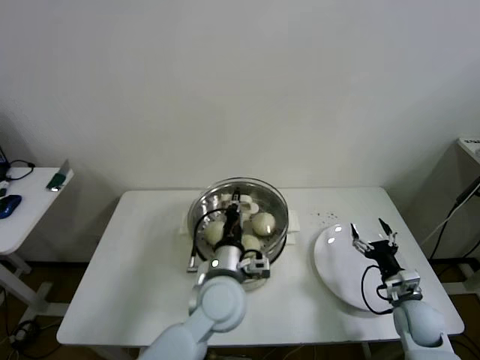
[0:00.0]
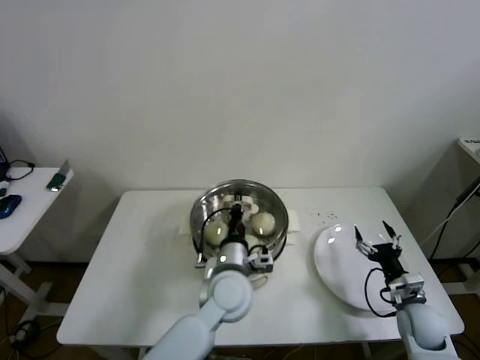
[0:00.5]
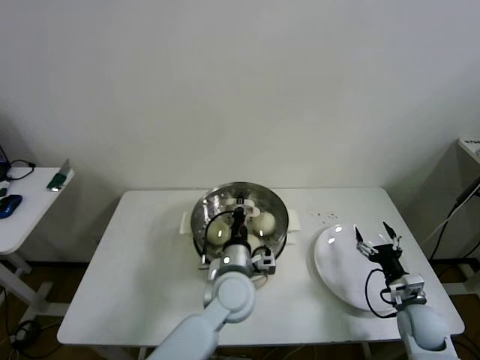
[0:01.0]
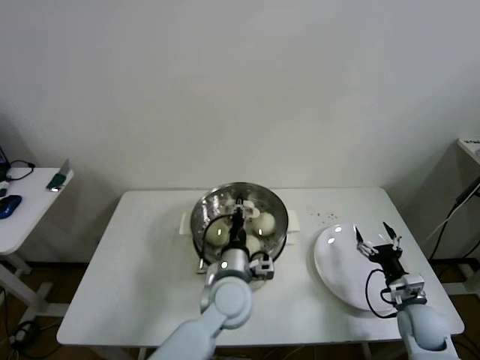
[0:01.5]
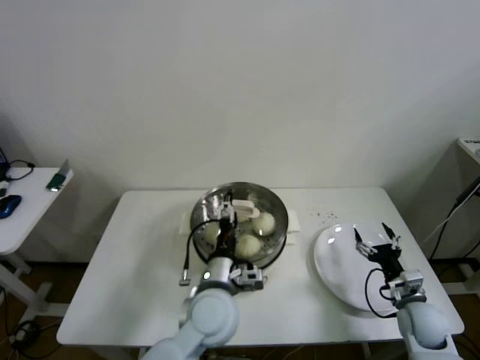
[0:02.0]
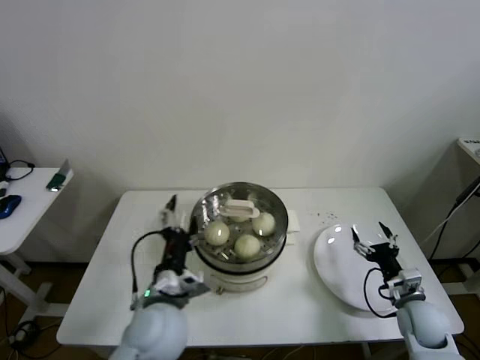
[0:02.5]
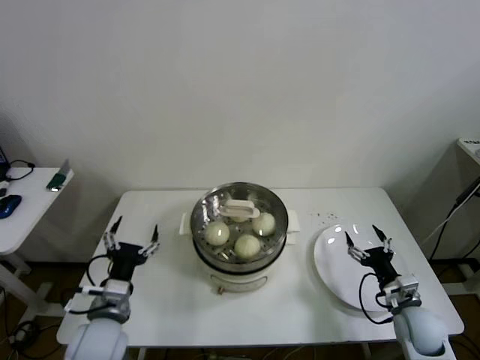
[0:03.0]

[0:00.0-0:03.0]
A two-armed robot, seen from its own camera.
0:00.0 to 0:01.5: The left gripper moves approximately 5 cm.
0:01.5 to 0:03.0: The left gripper is displaced to the left by approximately 25 cm, and opens.

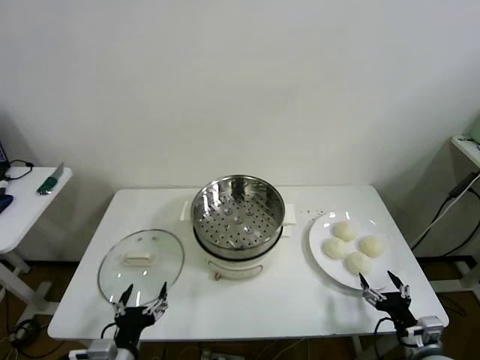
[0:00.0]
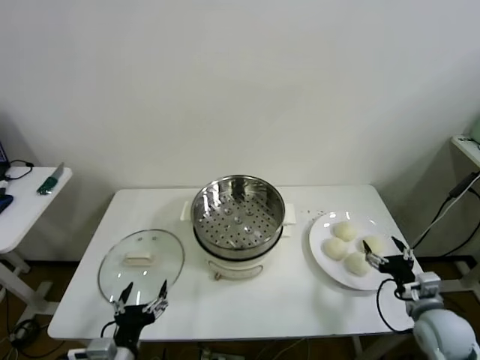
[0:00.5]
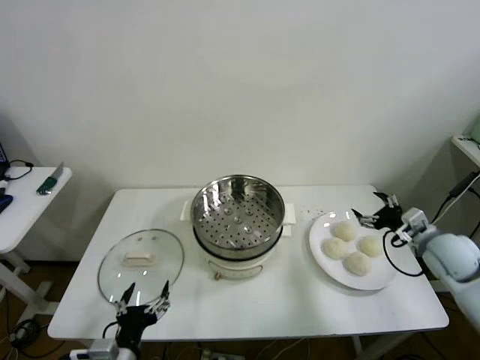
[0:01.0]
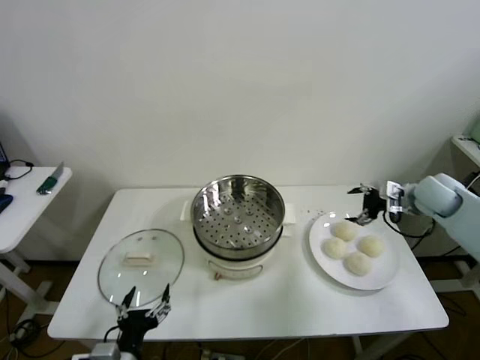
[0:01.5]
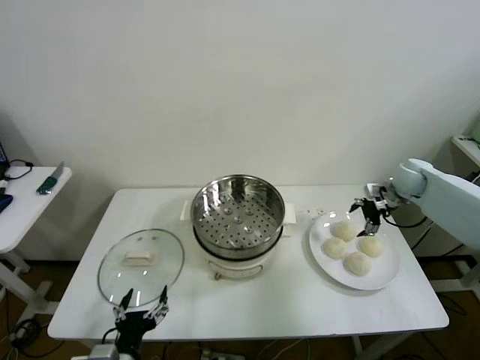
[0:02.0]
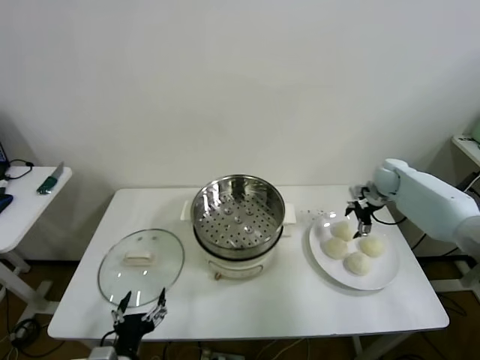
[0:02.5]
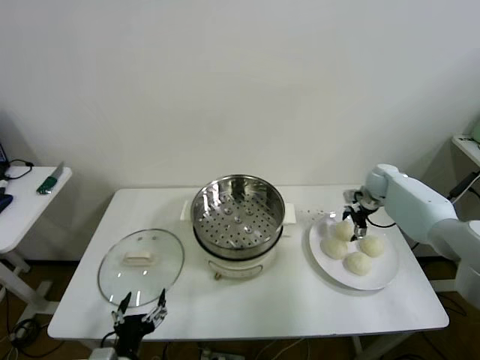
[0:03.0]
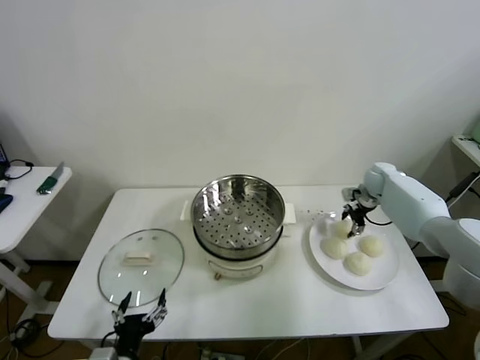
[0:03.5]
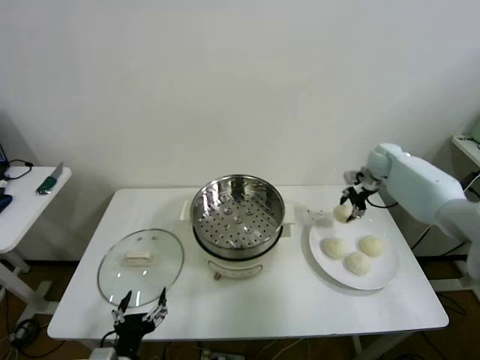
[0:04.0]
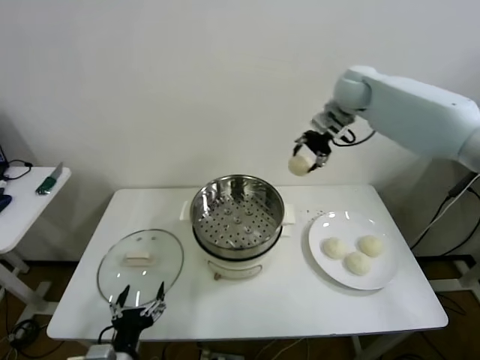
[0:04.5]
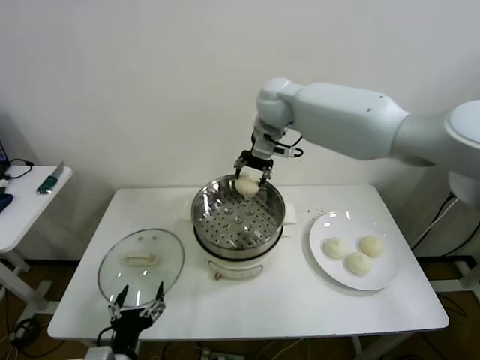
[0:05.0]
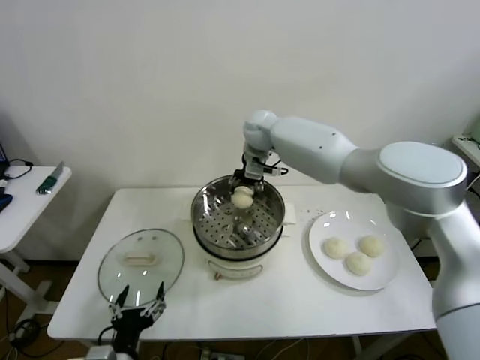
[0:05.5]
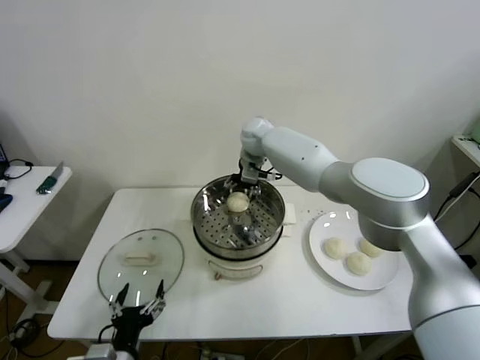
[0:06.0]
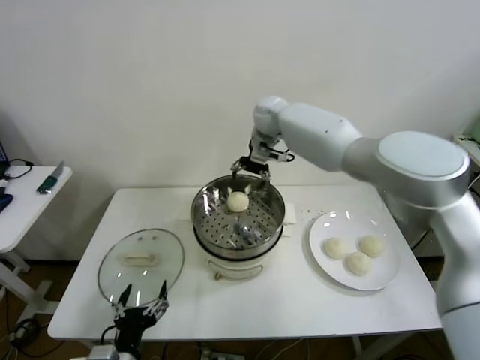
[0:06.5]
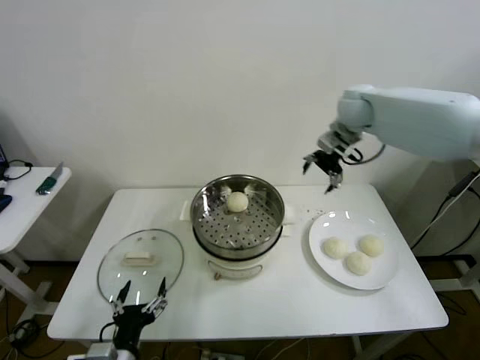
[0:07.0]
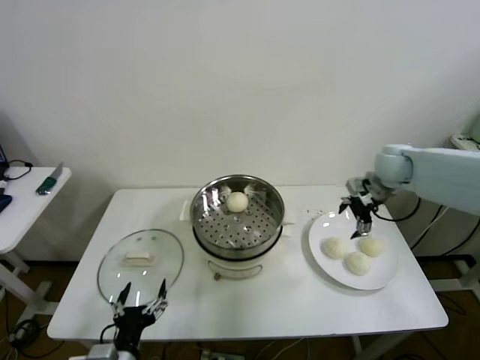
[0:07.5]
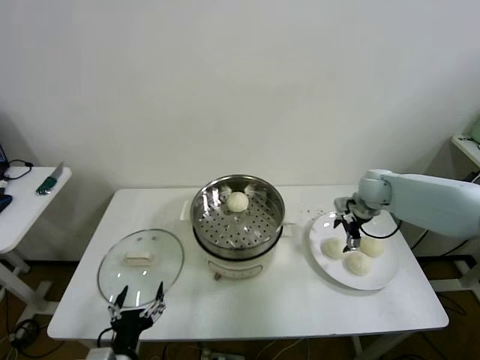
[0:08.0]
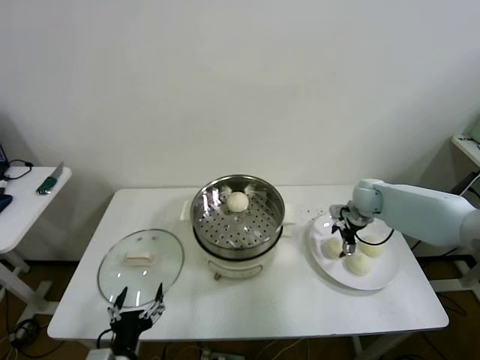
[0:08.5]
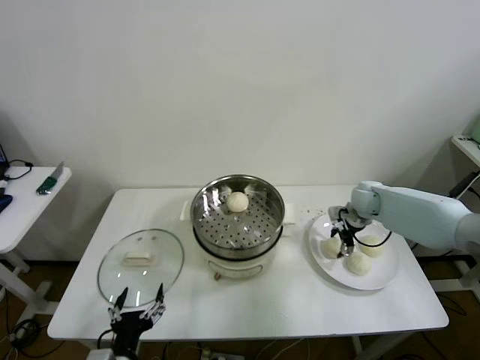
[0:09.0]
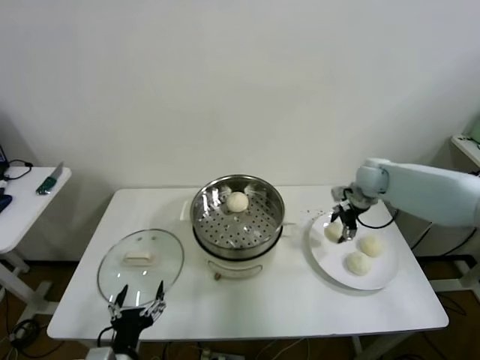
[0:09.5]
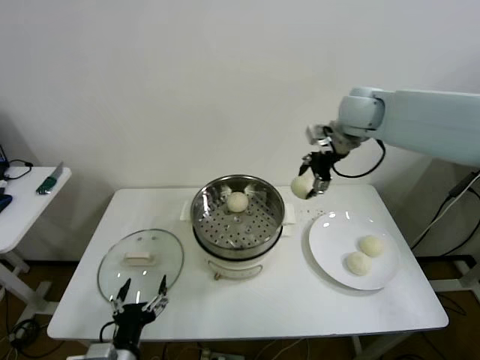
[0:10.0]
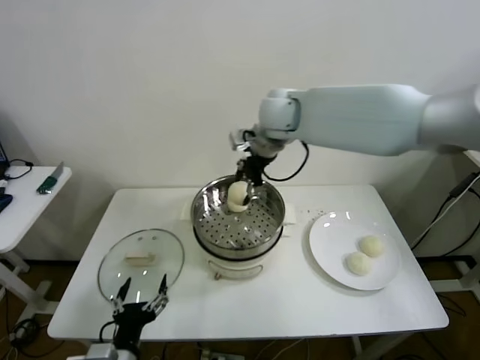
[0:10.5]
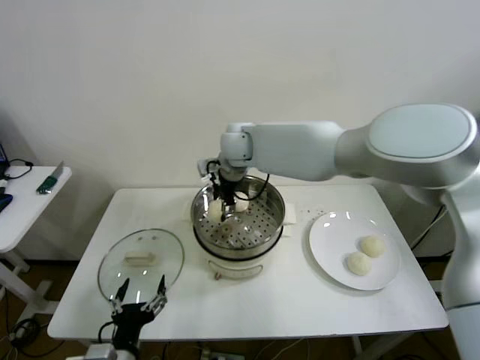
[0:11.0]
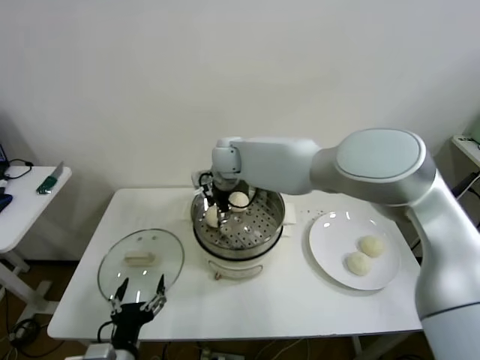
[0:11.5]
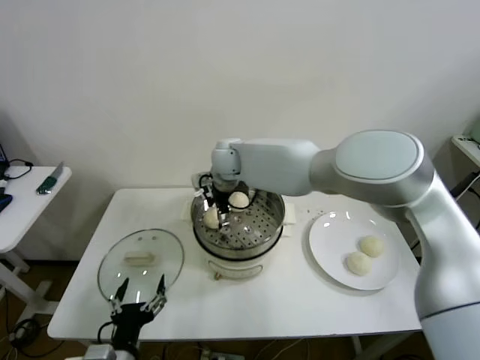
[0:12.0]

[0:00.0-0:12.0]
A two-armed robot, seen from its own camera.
Step, 0:00.0 to 0:03.0: Grasp the baozi in the plate with right gripper.
Step, 0:03.5 to 0:05.5: Place the baozi on the steamer with right gripper.
Step, 0:06.5 to 0:08.5: Grasp the baozi in the plate with right gripper.
Step, 0:09.0 to 0:11.5: Place the baozi on the steamer with right gripper.
0:02.0 to 0:04.0: The right gripper travels forward by approximately 10 cm, and closes.
0:04.0 to 0:06.0: The right gripper heads to the left, covering approximately 35 cm, and opens its fingers.
0:06.0 to 0:08.0: The right gripper moves to the right, some 30 cm.
0:08.0 to 0:10.0: The right gripper moves upward and to the left, some 25 cm, and closes up.
0:10.0 to 0:12.0: The right gripper is displaced to the left and downward by some 30 cm, and opens up.

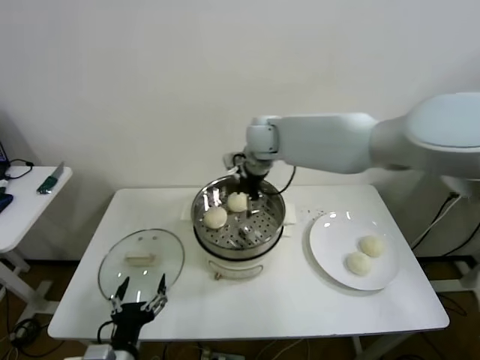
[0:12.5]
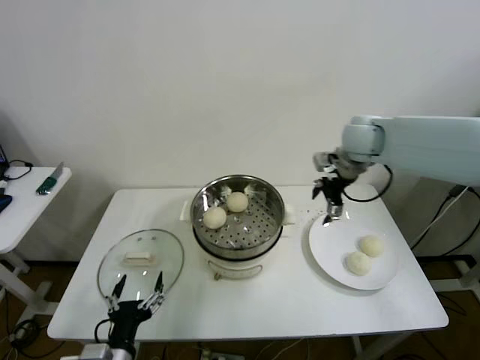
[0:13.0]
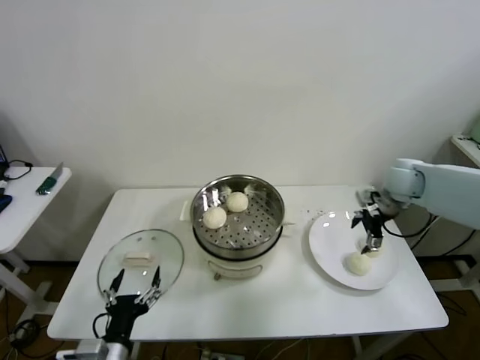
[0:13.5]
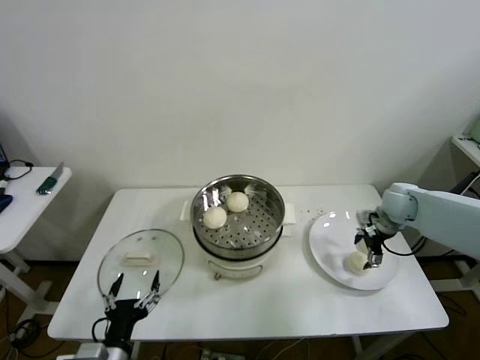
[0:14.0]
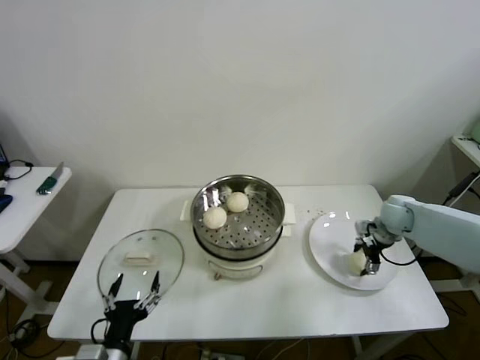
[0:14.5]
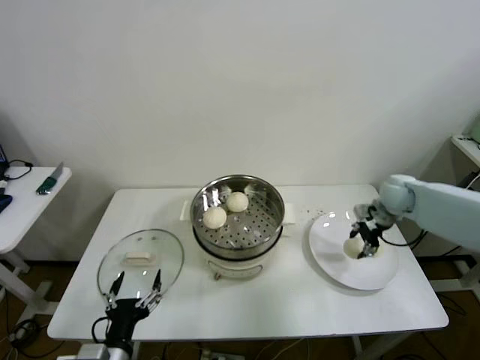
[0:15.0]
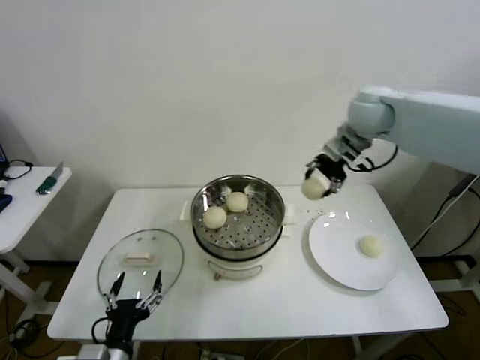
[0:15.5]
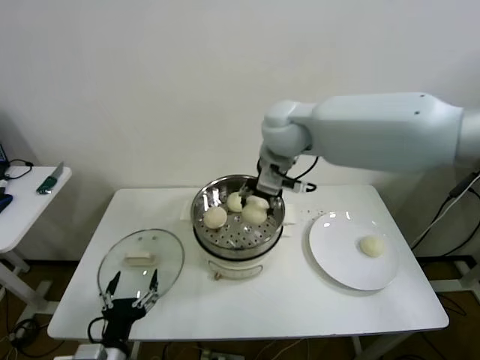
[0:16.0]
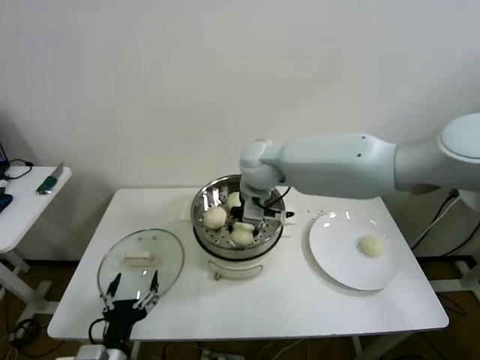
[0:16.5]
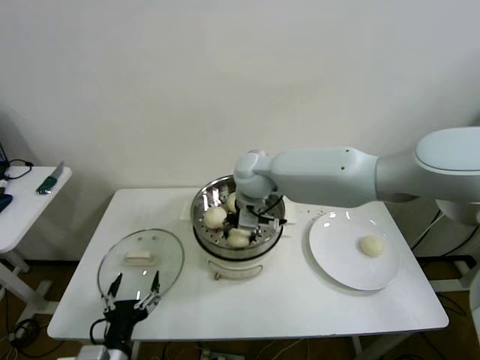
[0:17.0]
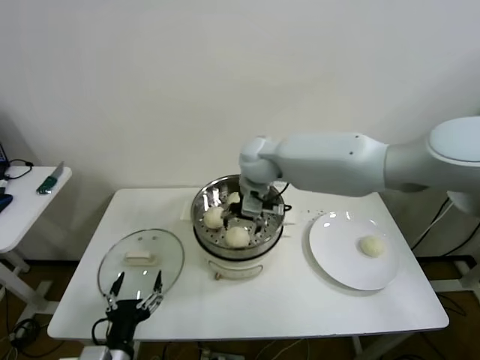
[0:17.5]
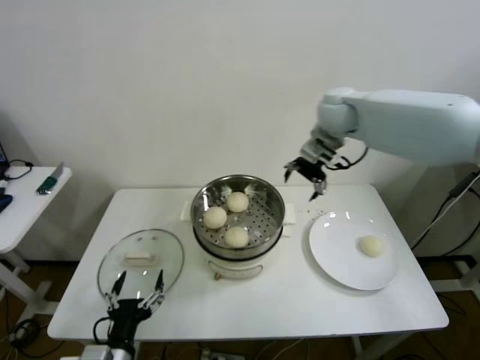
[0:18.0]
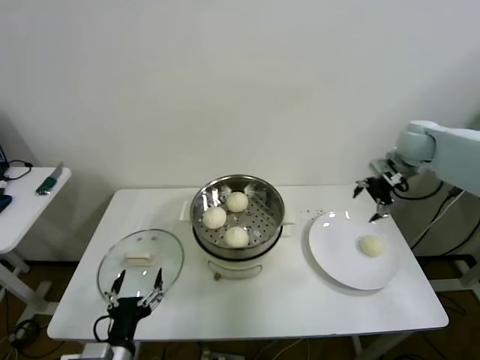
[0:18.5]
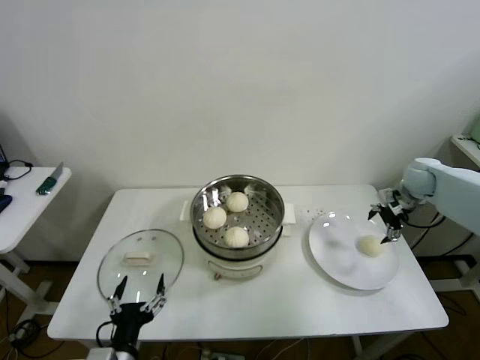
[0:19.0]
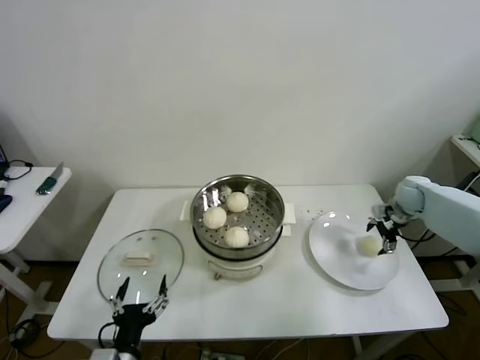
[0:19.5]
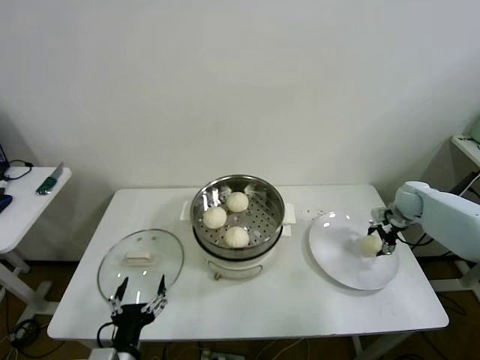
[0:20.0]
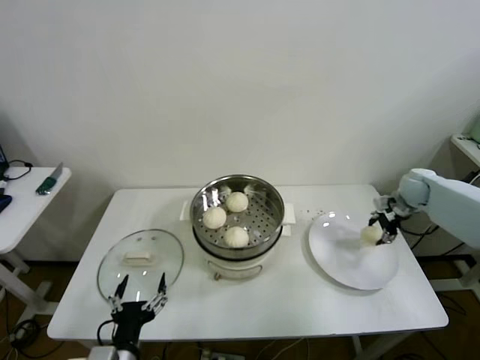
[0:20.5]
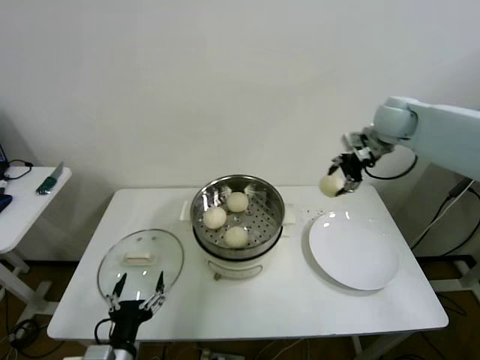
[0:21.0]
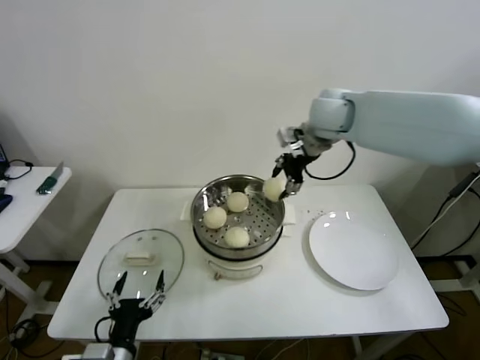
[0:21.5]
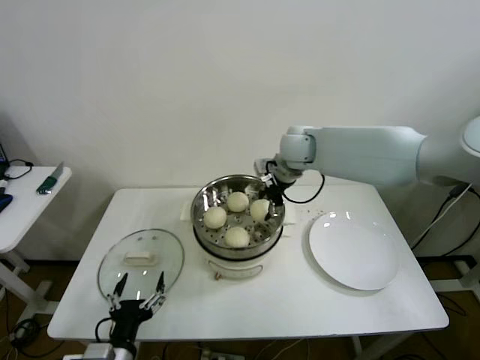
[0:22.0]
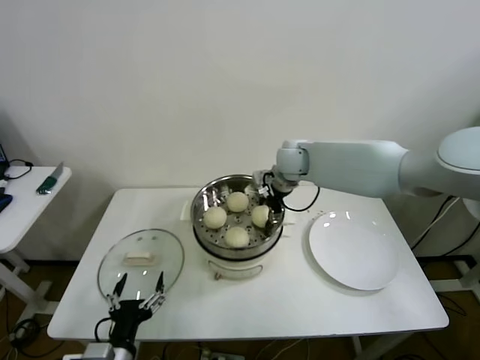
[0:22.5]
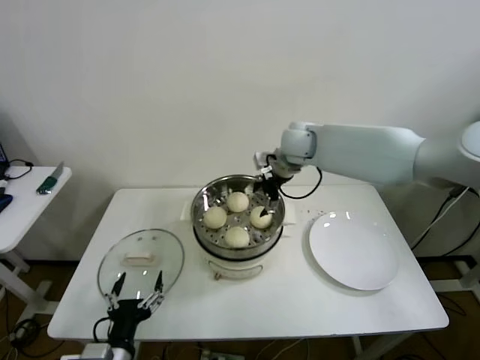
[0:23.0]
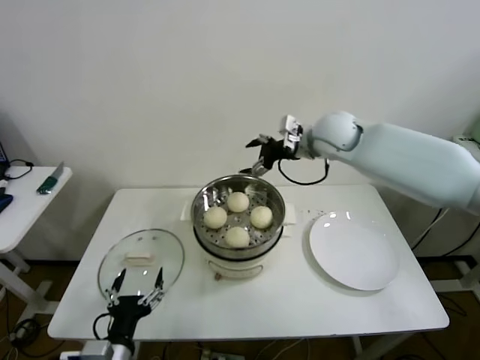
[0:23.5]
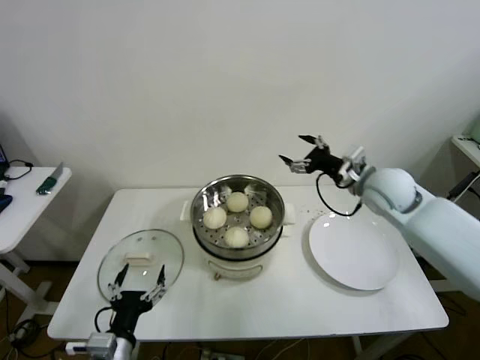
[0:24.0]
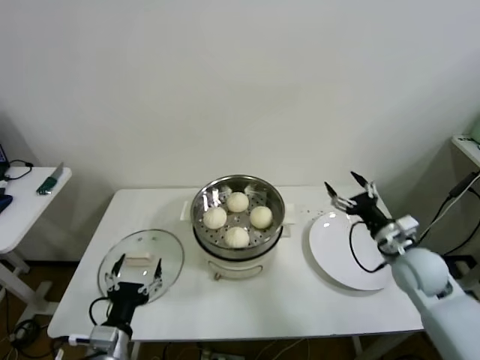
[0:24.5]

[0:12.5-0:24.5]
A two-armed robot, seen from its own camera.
Step, 0:12.5 to 0:14.5: Grasp the baozi in the plate with right gripper.
Step, 0:15.0 to 0:17.0: Place the baozi on the steamer with right gripper.
Step, 0:17.5 to 0:20.0: Grasp the baozi in the plate with right gripper.
Step, 0:20.5 to 0:22.5: Place the baozi on the steamer with right gripper.
0:12.5 to 0:14.5: The right gripper goes some 40 cm to the right and downward, and closes its fingers.
0:14.5 to 0:16.5: The right gripper is displaced to the left and upward by some 40 cm, and closes its fingers.
0:16.5 to 0:18.5: The right gripper heads to the right, covering some 35 cm, and opens up.
0:18.5 to 0:20.5: The right gripper travels downward and to the right by about 15 cm, and closes up.
0:20.5 to 0:22.5: The right gripper shifts roughly 35 cm to the left.
0:22.5 to 0:24.5: The right gripper is displaced to the right, backward and downward by roughly 35 cm, and opens up.
